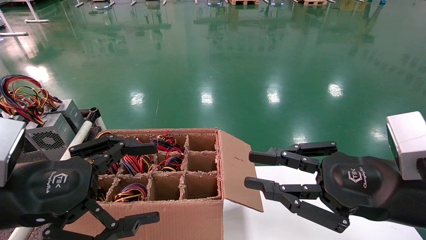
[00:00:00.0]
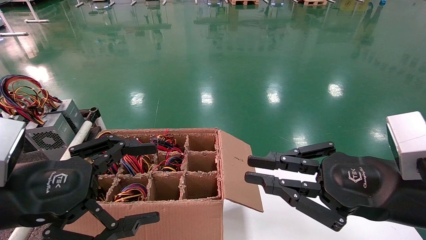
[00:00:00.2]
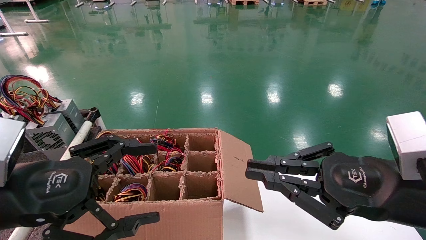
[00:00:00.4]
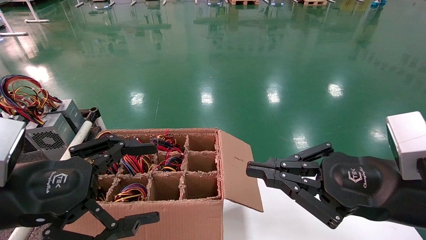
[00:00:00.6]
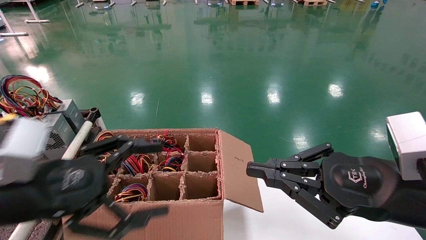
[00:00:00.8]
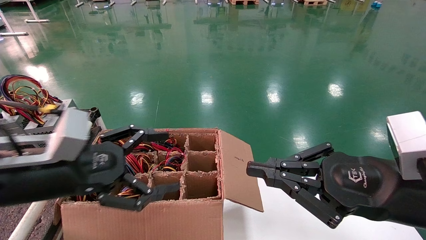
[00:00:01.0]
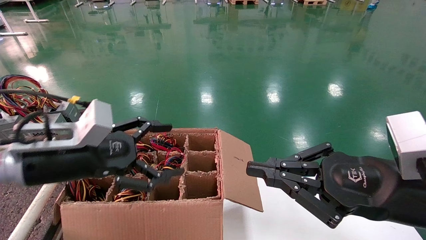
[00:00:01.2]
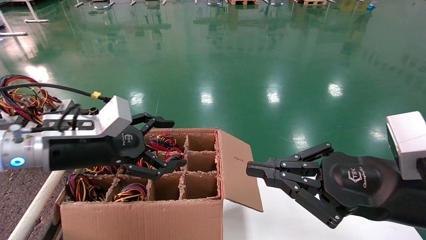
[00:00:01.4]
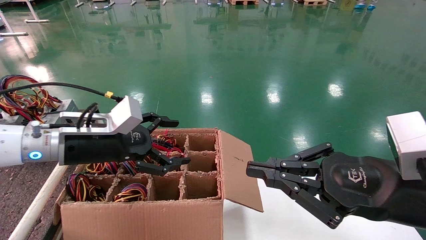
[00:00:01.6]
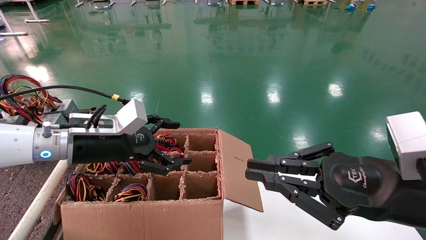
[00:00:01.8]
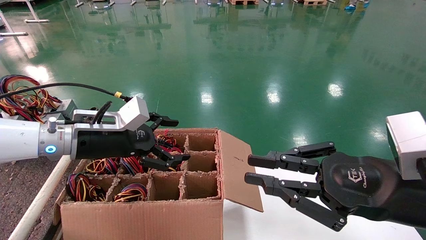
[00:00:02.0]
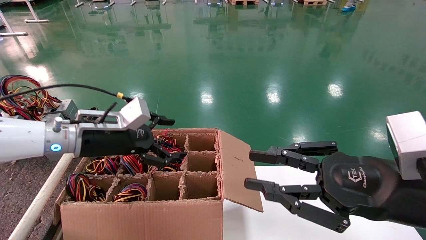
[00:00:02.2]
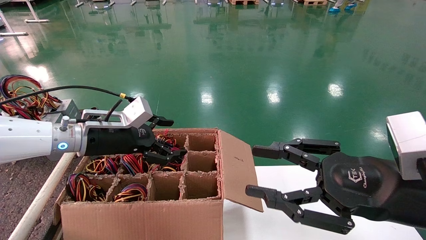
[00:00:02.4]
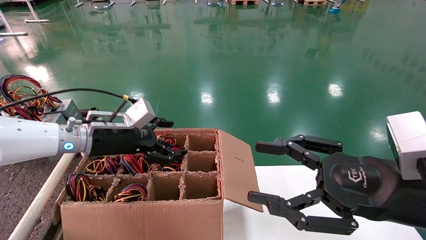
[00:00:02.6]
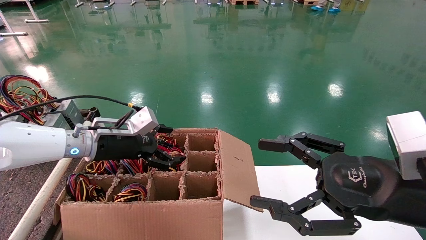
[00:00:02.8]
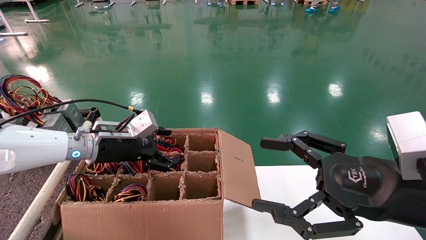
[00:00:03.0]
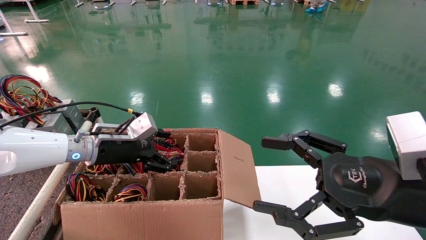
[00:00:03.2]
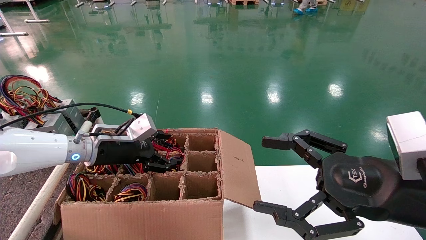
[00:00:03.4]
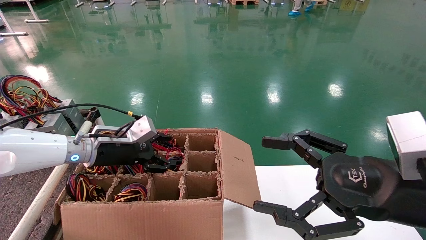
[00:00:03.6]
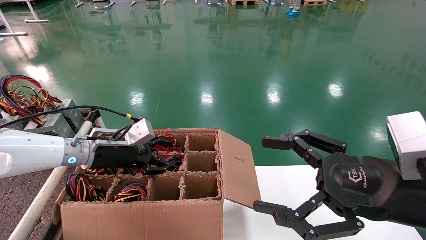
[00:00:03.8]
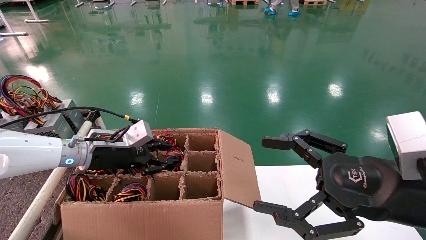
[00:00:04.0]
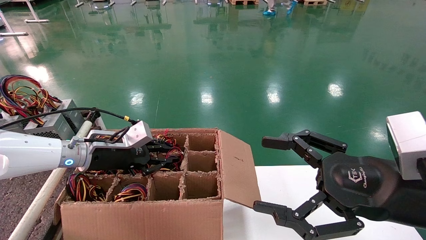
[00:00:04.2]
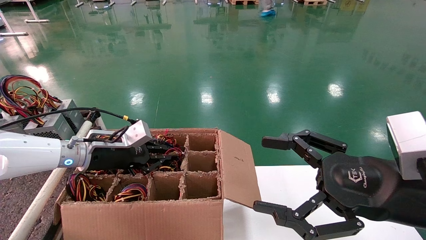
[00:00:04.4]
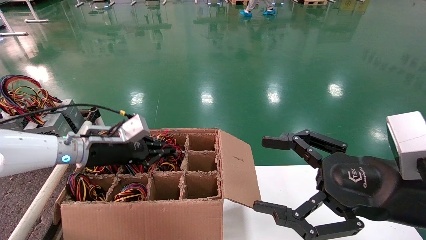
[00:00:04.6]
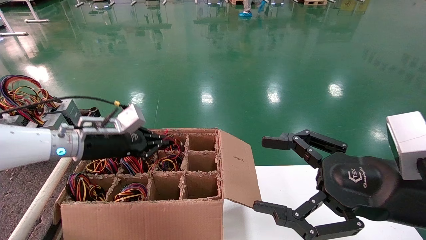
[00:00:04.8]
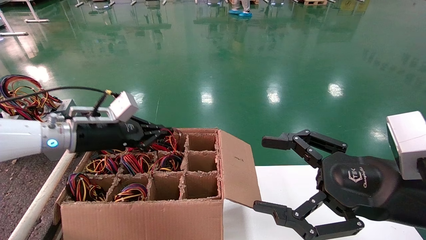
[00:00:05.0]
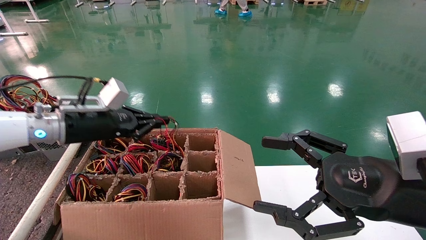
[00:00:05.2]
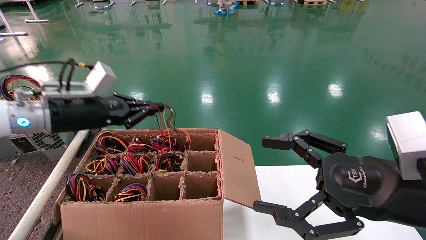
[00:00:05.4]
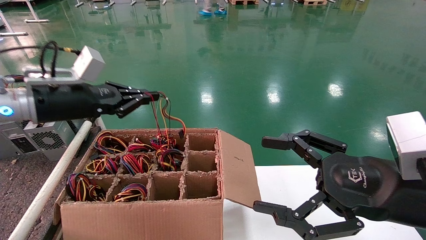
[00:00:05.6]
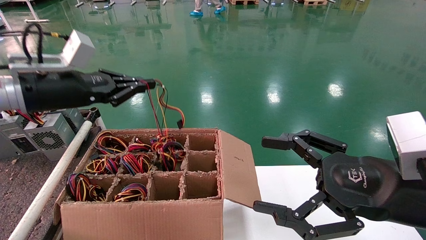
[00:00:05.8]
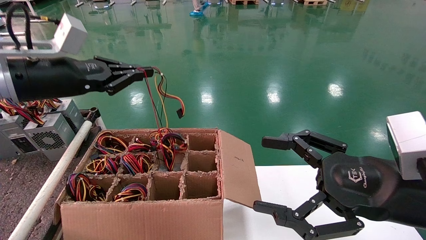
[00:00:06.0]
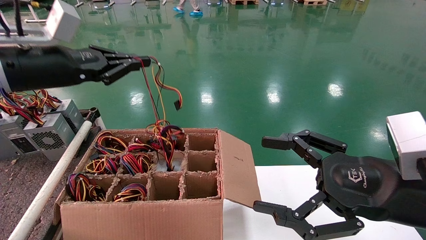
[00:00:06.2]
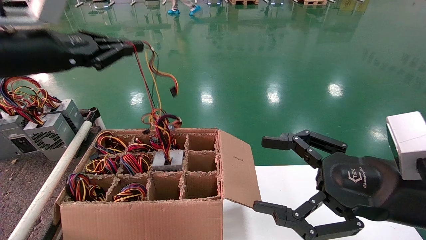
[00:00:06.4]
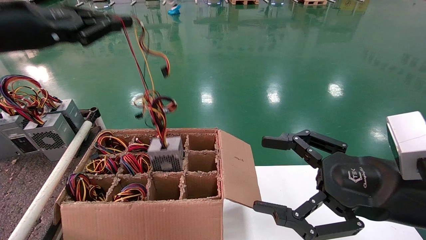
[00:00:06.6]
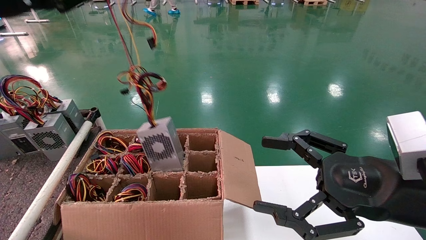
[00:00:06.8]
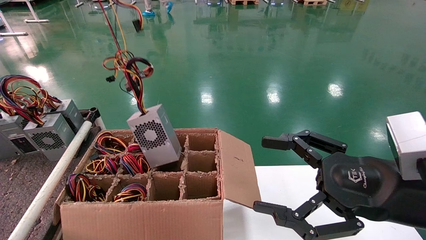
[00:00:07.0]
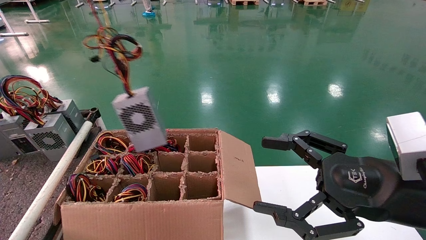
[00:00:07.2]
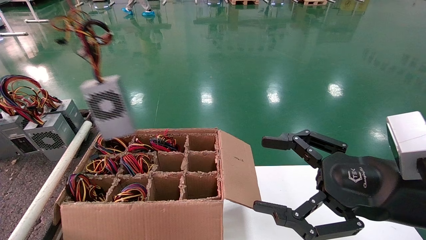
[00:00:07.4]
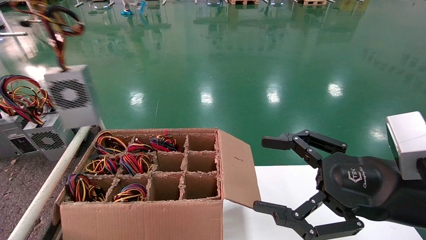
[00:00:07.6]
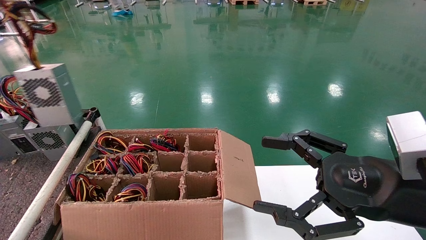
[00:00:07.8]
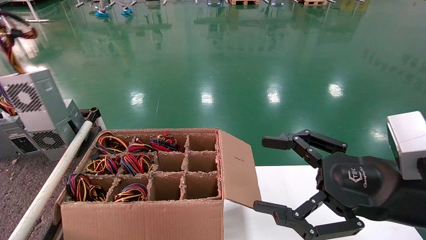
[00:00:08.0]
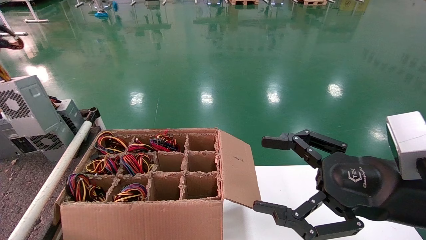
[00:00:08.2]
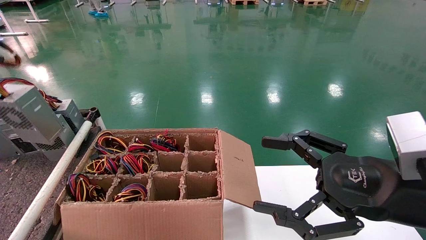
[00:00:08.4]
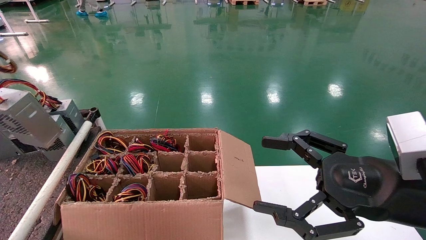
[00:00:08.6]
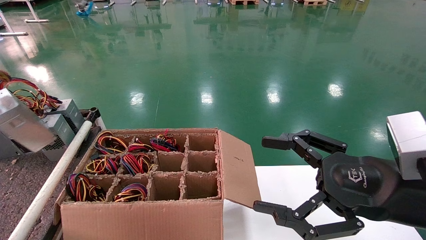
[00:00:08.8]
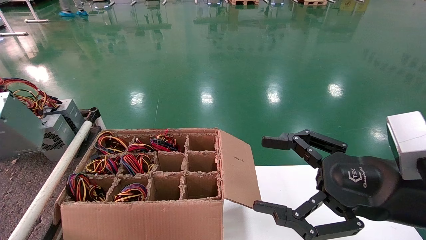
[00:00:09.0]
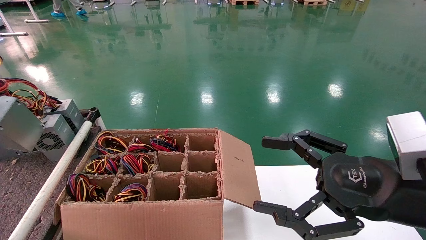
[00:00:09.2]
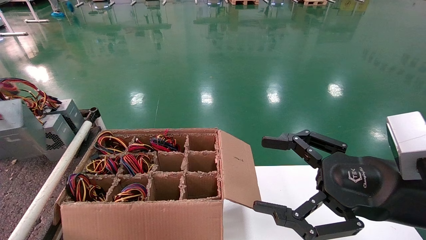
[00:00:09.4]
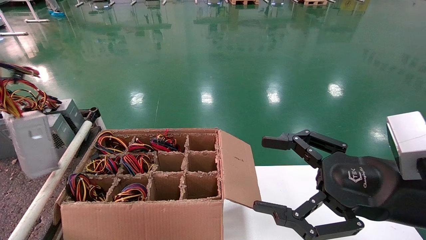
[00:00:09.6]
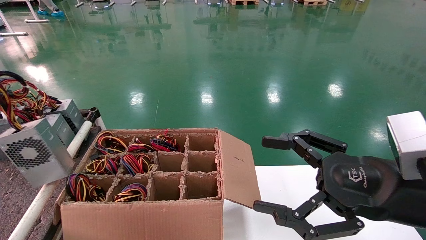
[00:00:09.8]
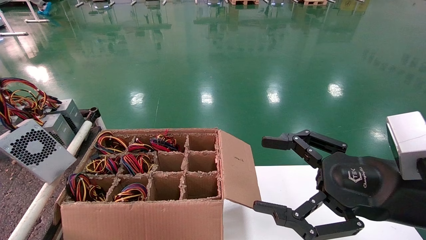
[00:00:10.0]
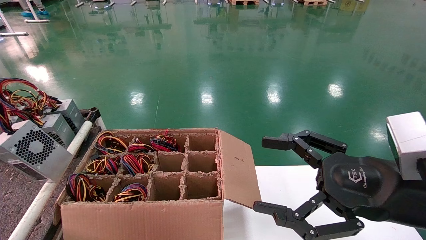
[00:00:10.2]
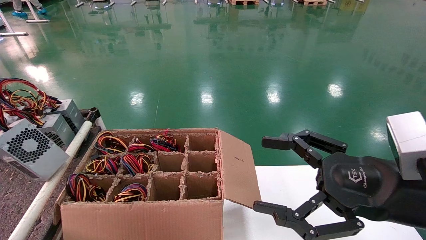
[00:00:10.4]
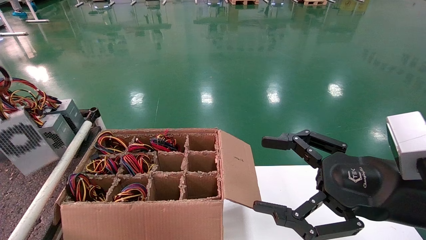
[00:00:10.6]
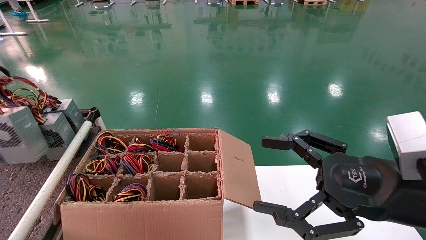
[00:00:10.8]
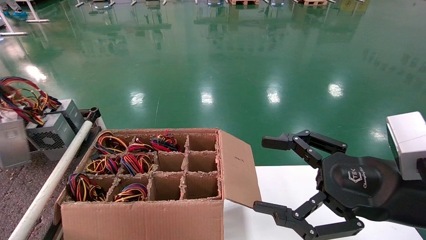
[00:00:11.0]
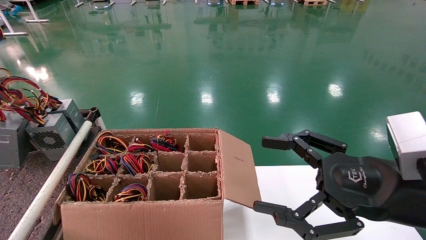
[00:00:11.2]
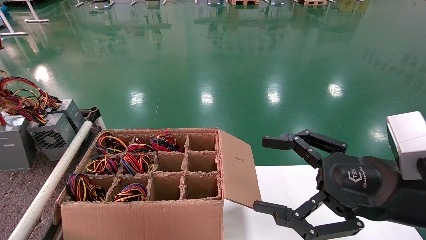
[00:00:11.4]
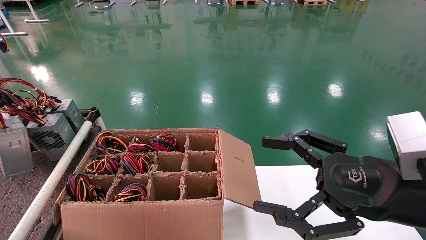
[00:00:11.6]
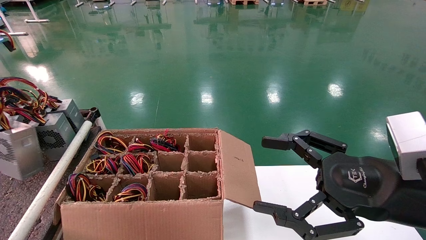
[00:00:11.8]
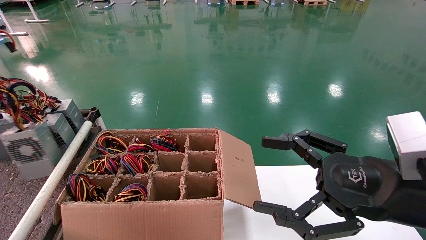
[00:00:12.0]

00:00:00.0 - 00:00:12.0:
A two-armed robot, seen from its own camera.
Step, 00:00:01.2 - 00:00:04.6: Grab and lift the power supply from the large box.
00:00:00.0 - 00:00:01.6: The left gripper moves forward, some 15 cm.
00:00:01.6 - 00:00:03.0: The left gripper travels forward by about 10 cm; the right gripper opens.
00:00:03.0 - 00:00:04.4: The left gripper closes.
00:00:04.4 - 00:00:06.0: The left gripper travels upward by roughly 15 cm.
00:00:06.0 - 00:00:07.6: The left gripper heads upward, to the left and backward, covering some 25 cm.
00:00:07.6 - 00:00:09.0: The left gripper heads to the left and backward, covering approximately 10 cm.
00:00:09.0 - 00:00:10.4: There are only small adjustments of the grippers.
00:00:10.4 - 00:00:12.0: The left gripper shifts approximately 5 cm forward.

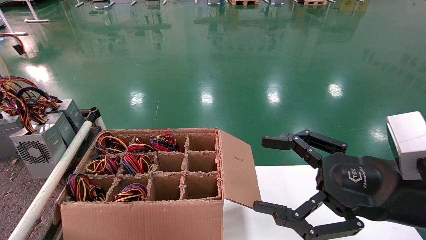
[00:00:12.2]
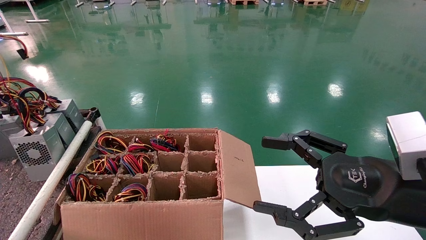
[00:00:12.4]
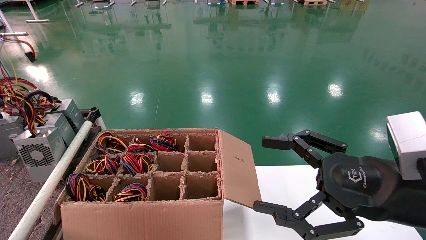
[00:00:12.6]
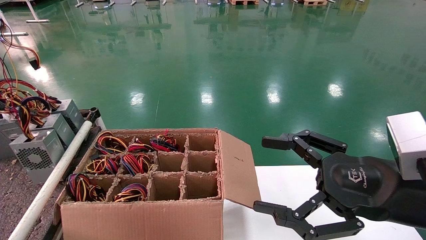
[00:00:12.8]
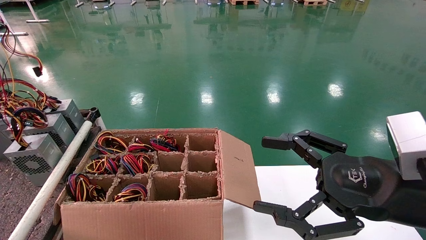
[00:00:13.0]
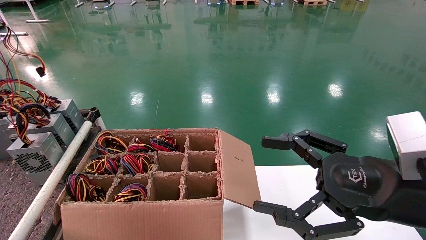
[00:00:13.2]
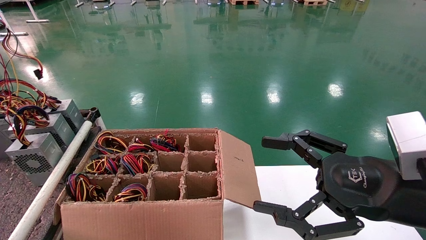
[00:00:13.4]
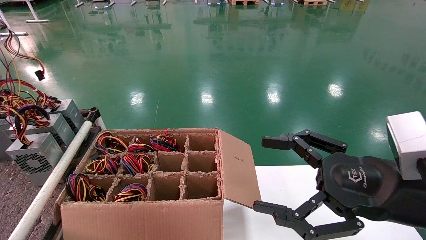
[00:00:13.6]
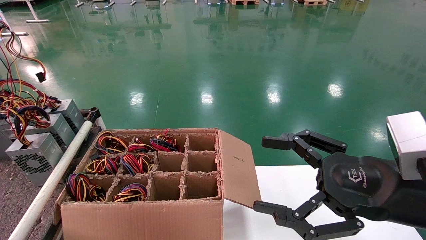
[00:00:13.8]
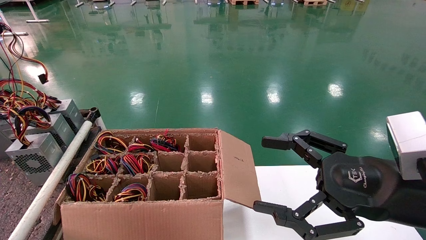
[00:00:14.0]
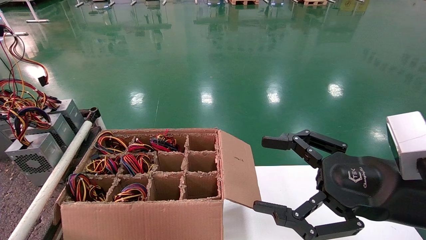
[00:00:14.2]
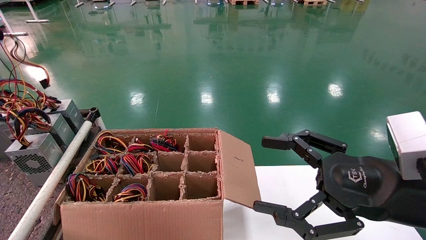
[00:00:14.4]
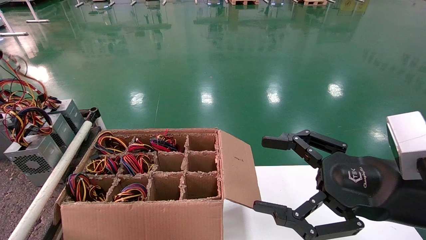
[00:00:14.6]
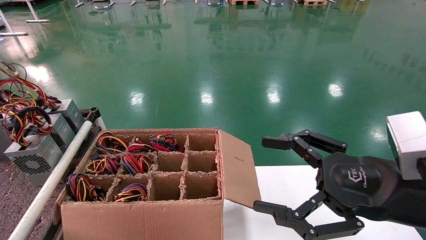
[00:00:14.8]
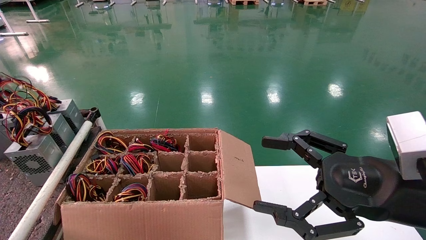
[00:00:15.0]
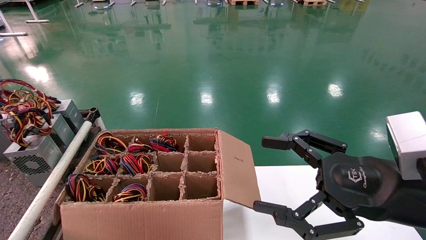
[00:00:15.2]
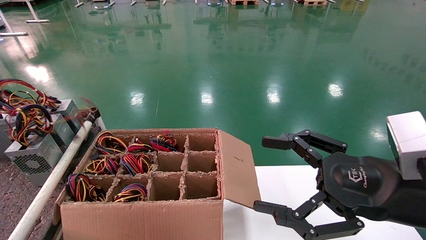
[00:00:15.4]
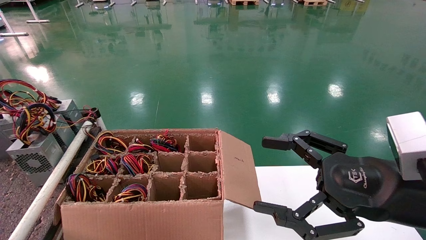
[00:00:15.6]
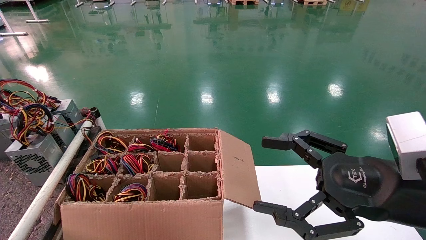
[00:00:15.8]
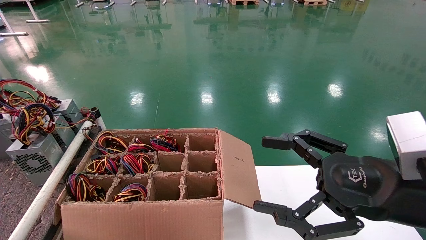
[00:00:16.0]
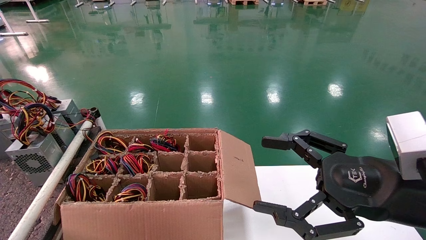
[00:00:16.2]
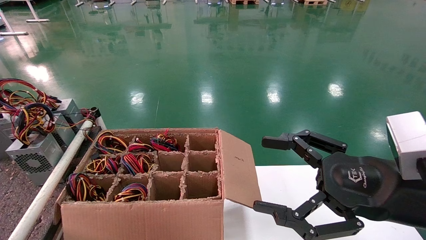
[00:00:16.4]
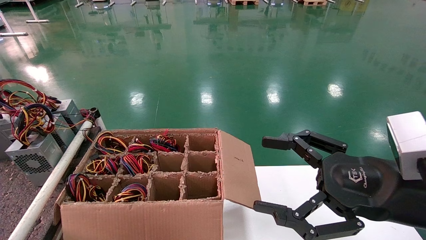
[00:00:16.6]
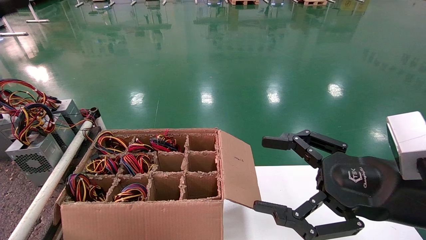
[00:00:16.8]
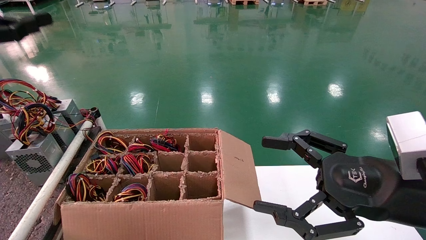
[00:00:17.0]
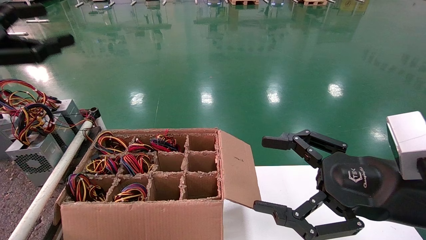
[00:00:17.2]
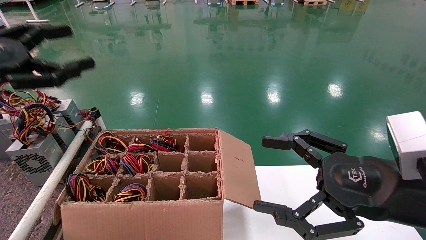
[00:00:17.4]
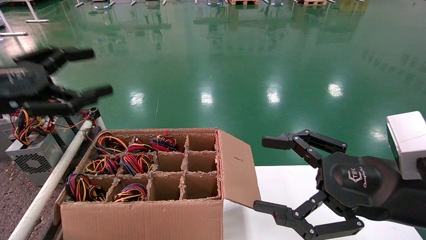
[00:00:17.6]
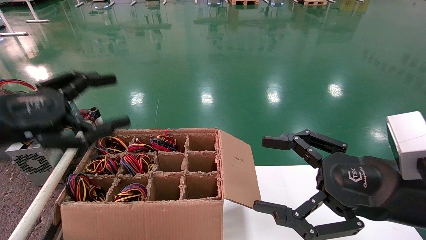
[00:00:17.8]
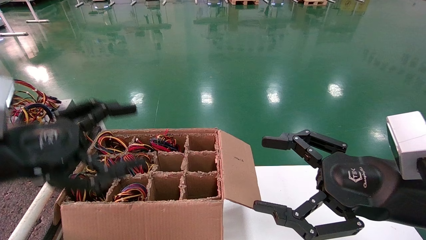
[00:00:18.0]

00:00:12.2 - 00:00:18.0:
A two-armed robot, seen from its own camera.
00:00:12.2 - 00:00:13.6: There are only small adjustments of the grippers.
00:00:13.6 - 00:00:15.0: The left gripper opens up.
00:00:15.0 - 00:00:16.6: The left gripper ends up approximately 5 cm from where it was.
00:00:16.6 - 00:00:18.0: The left gripper is displaced to the right and downward by approximately 25 cm.
